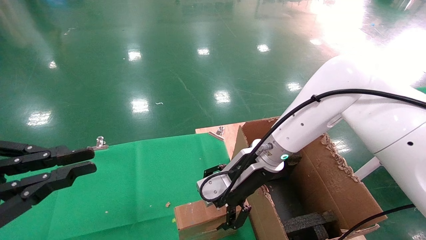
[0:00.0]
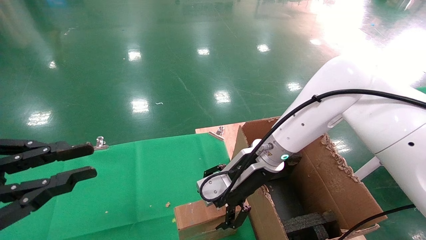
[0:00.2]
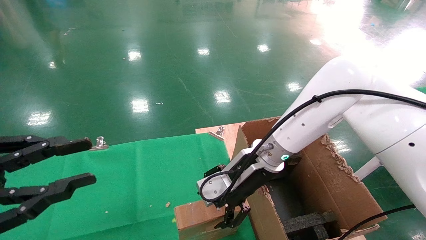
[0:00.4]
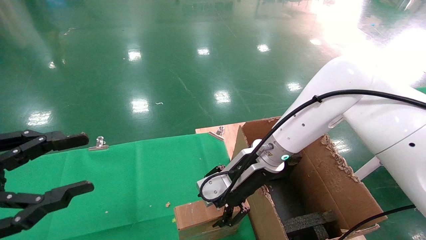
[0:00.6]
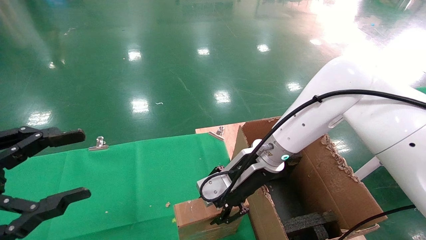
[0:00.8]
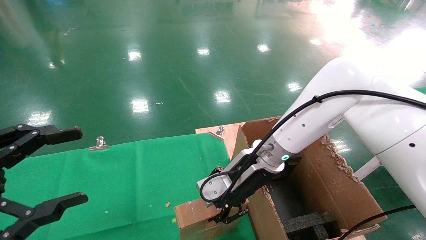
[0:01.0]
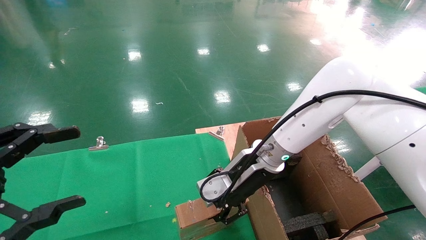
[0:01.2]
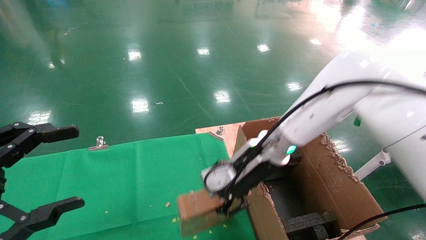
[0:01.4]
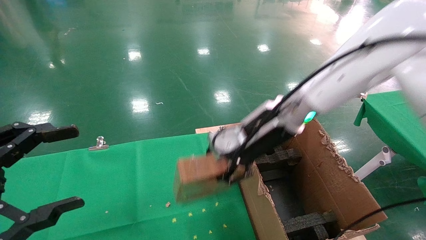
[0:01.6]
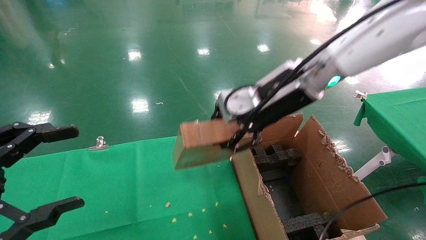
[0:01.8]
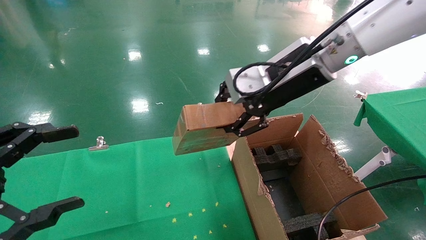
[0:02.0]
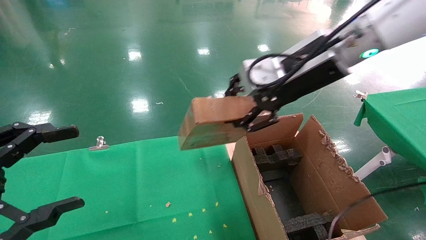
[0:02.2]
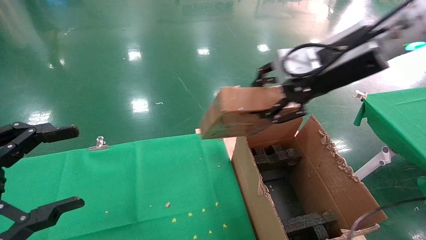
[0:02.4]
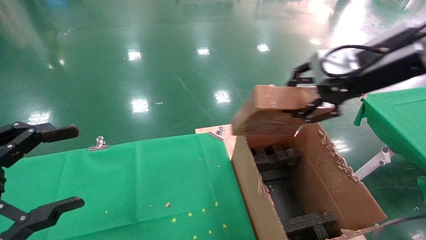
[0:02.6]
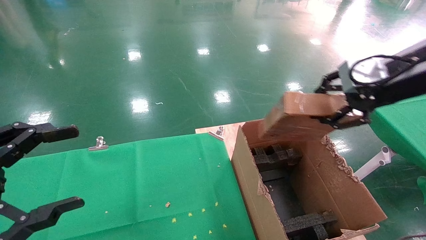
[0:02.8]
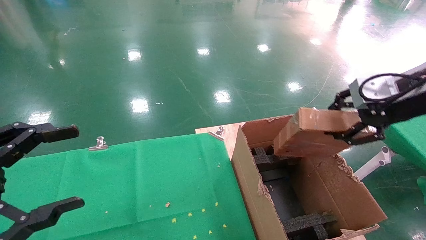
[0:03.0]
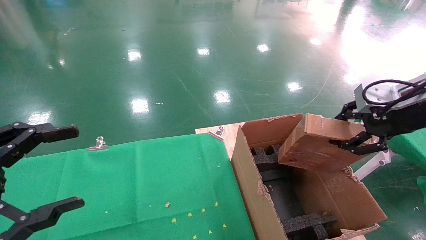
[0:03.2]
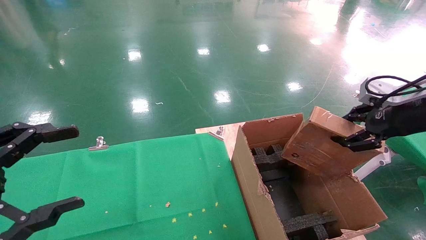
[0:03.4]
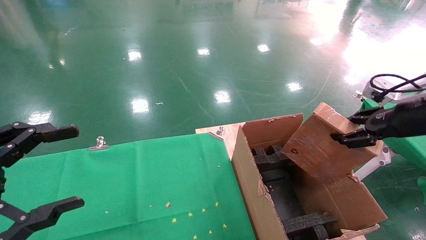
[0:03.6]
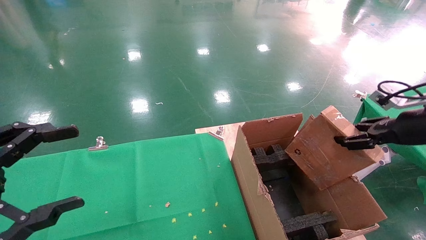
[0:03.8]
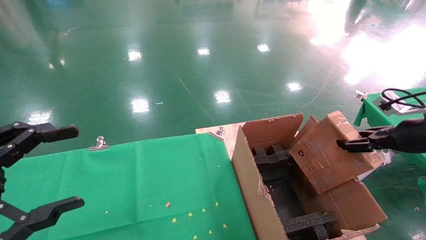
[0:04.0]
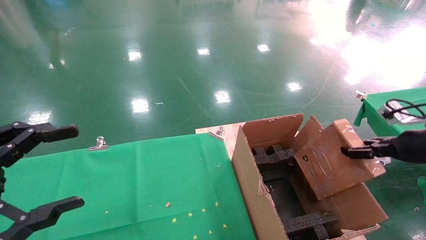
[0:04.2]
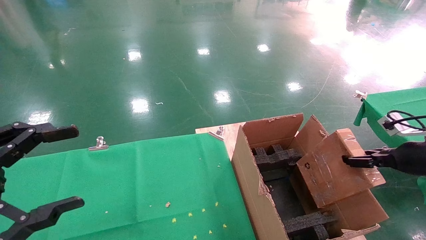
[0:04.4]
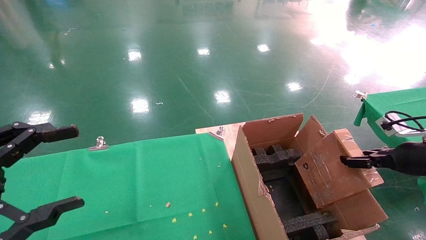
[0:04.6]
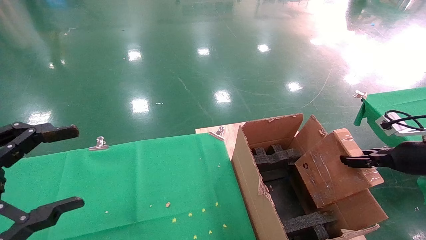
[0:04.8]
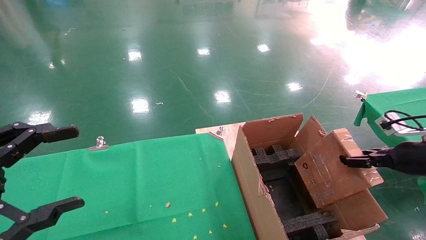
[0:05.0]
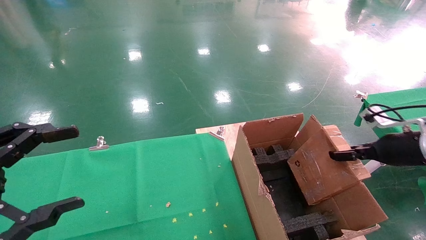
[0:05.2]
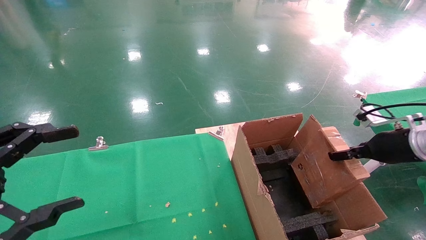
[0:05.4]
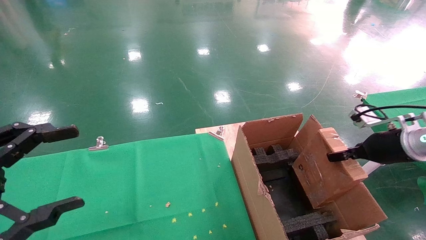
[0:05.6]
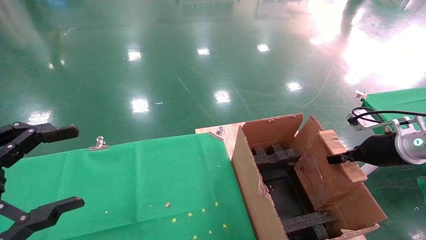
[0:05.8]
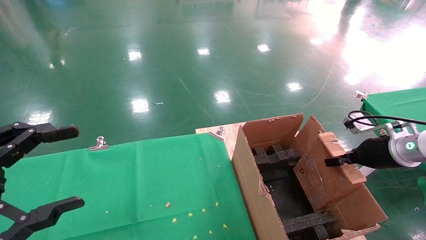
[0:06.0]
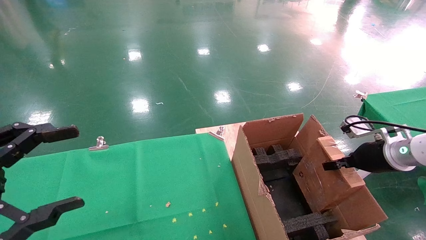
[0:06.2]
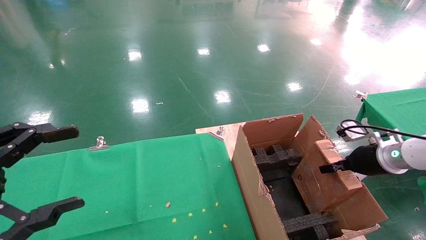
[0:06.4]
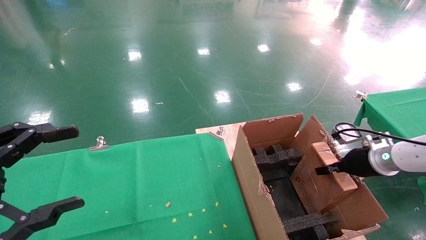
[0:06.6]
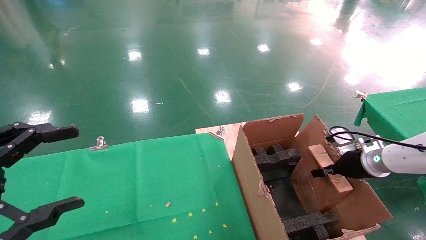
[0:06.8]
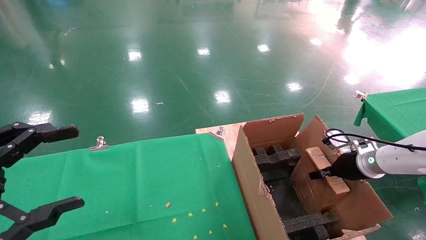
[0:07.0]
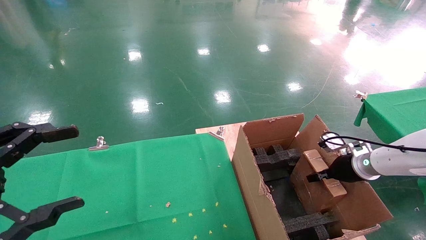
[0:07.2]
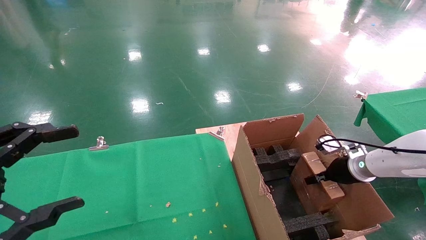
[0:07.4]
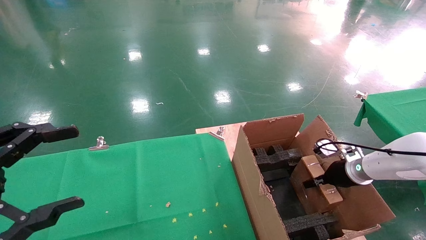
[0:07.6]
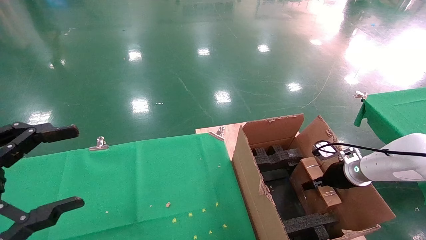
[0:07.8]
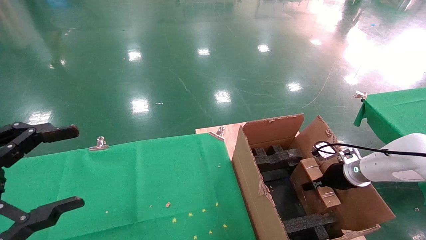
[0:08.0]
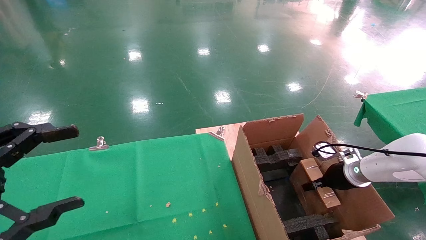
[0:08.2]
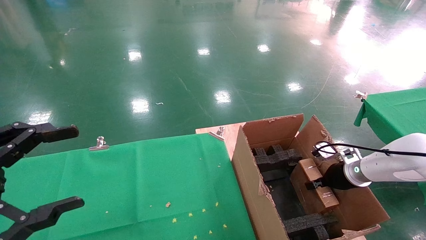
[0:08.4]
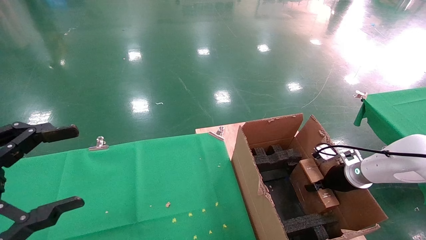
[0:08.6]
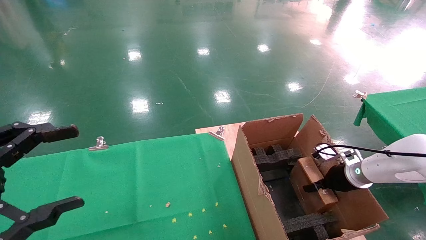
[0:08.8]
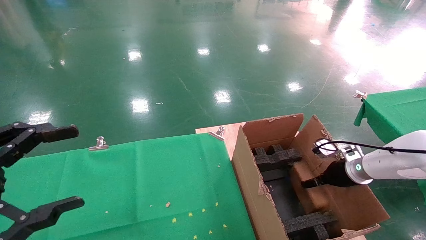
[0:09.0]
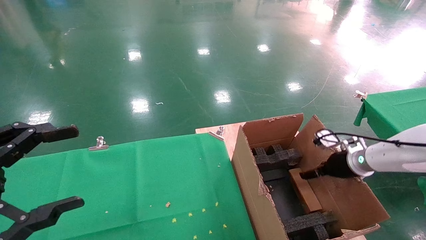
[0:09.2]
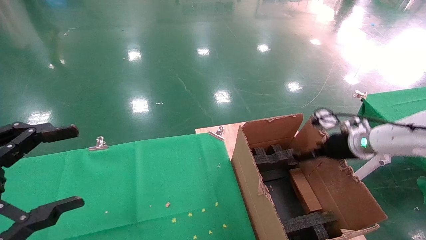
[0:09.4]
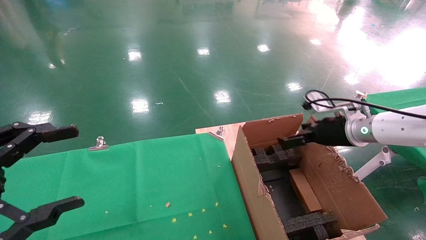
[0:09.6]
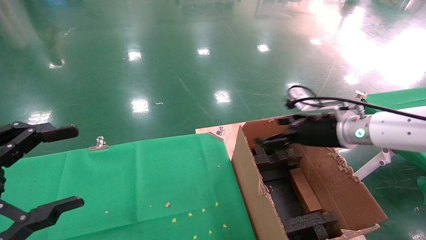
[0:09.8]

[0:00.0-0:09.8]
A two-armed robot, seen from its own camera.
Task of the whole recording: using a robotic arm to pick up a cardboard box and palace it the carton.
0:00.0 to 0:01.4: The left gripper opens, while the right gripper goes some 5 cm upward, and closes.
0:01.4 to 0:02.8: The right gripper is displaced to the right, upward and backward by about 25 cm.
0:02.8 to 0:04.2: The right gripper goes about 20 cm downward and to the right.
0:04.2 to 0:05.6: The right gripper changes place by roughly 5 cm.
0:05.6 to 0:07.0: The right gripper moves downward and forward, roughly 10 cm.
0:07.0 to 0:08.4: The right gripper shifts by some 5 cm.
0:08.4 to 0:09.8: The right gripper heads upward and to the left, covering approximately 20 cm, and opens.

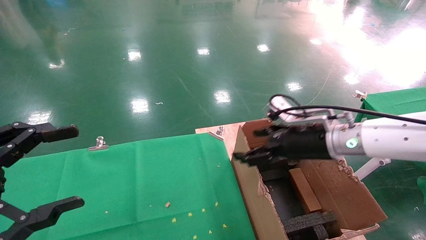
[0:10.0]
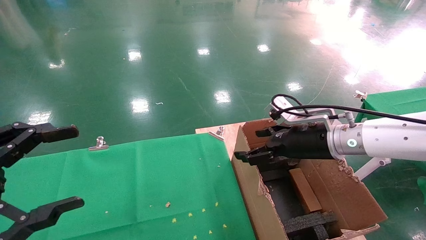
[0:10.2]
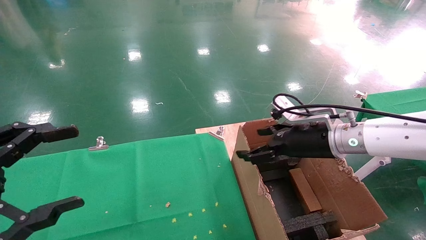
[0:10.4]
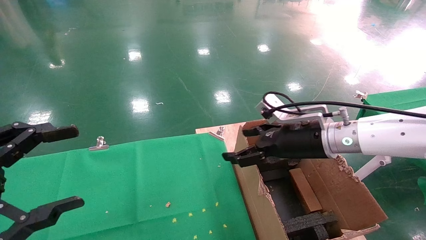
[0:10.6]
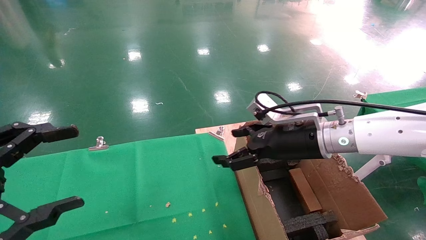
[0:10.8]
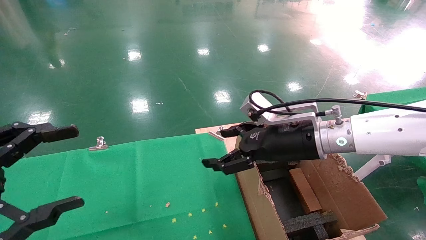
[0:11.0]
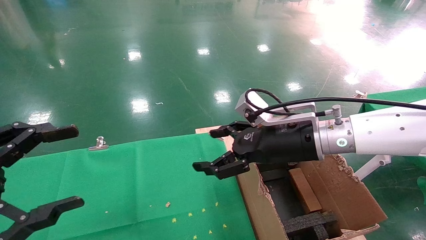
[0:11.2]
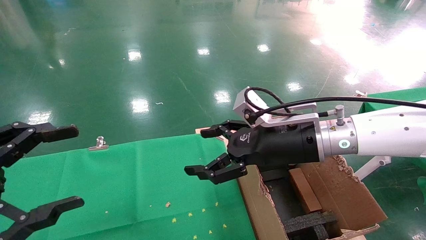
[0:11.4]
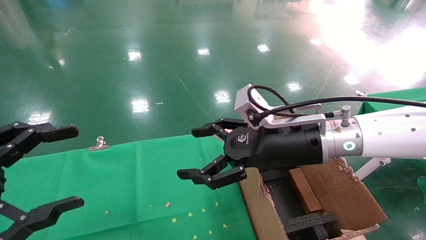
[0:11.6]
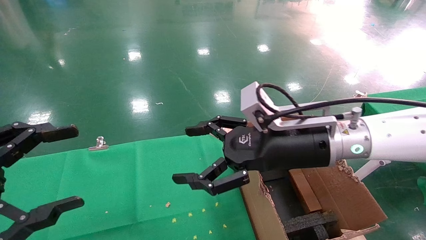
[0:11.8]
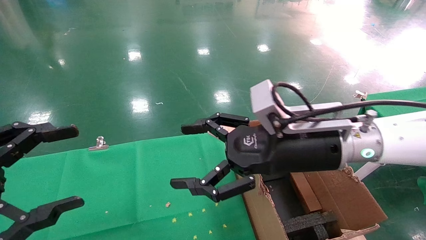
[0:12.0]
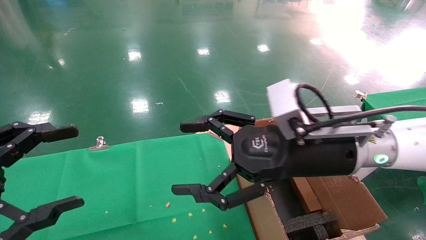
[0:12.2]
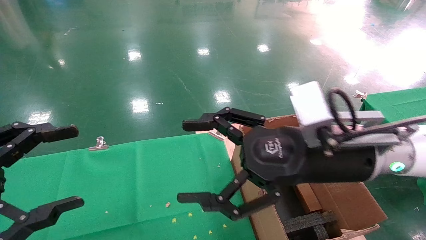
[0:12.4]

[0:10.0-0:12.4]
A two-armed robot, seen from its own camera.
Task of the whole recording: using a robotic arm to pick up a cardboard box and palace it the carton.
0:10.0 to 0:11.2: The right gripper is displaced to the left by some 10 cm.
0:11.2 to 0:12.4: The right gripper shifts some 10 cm backward.

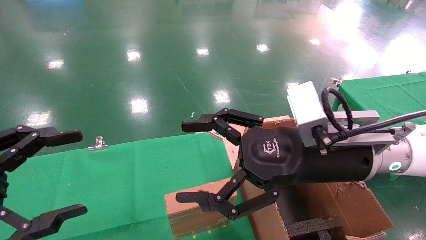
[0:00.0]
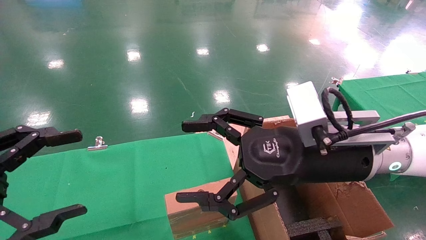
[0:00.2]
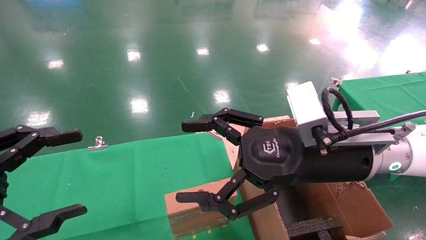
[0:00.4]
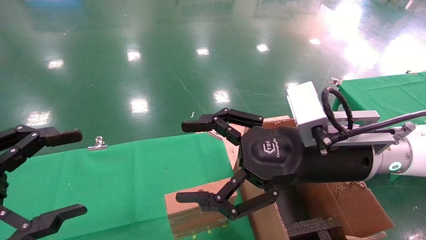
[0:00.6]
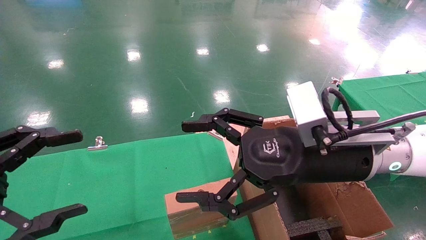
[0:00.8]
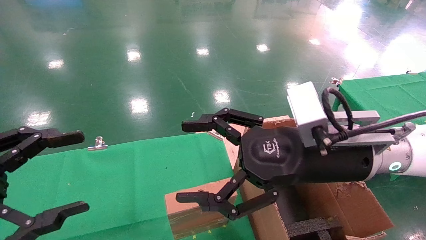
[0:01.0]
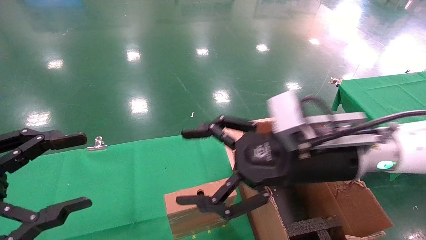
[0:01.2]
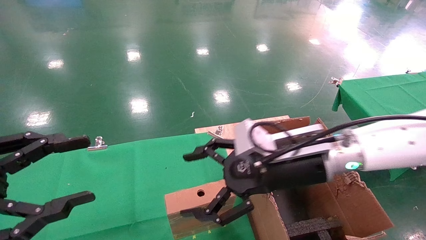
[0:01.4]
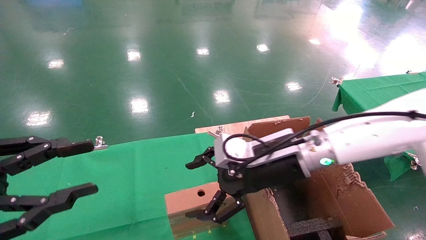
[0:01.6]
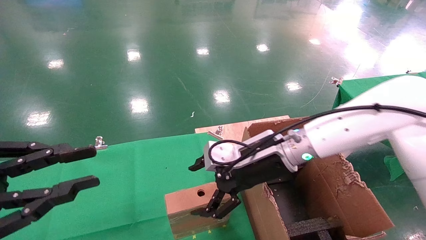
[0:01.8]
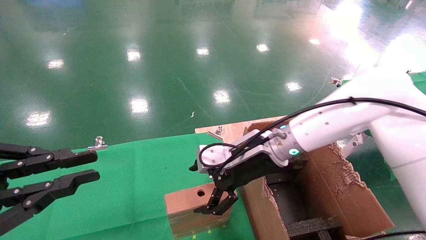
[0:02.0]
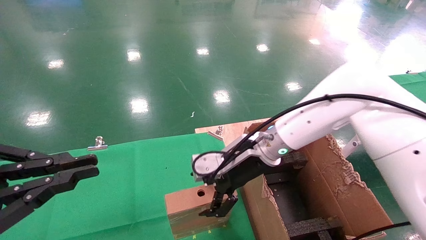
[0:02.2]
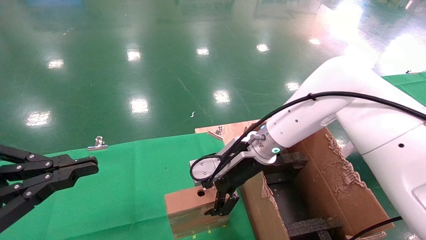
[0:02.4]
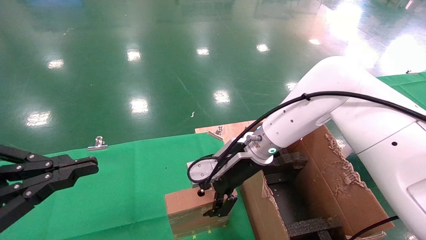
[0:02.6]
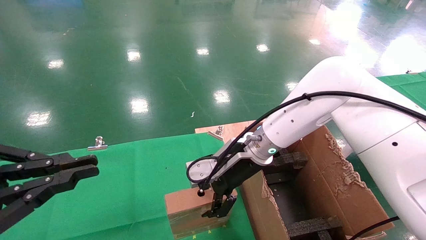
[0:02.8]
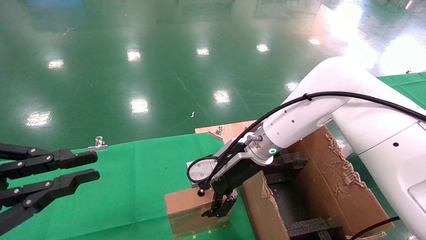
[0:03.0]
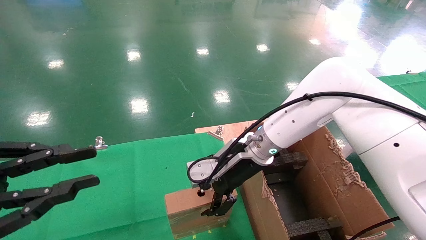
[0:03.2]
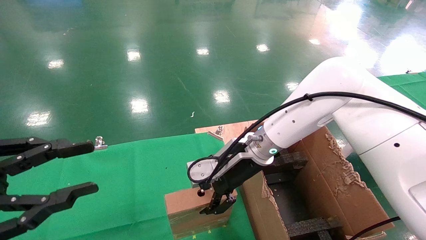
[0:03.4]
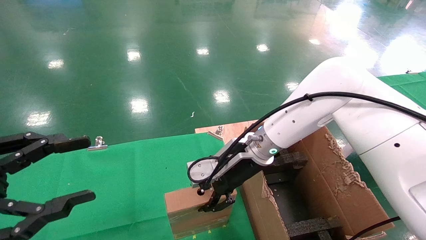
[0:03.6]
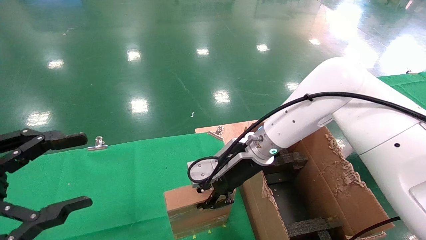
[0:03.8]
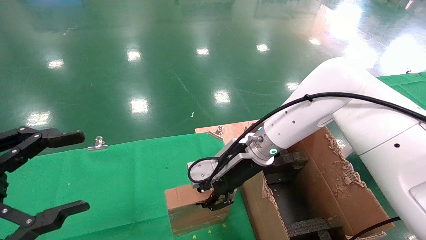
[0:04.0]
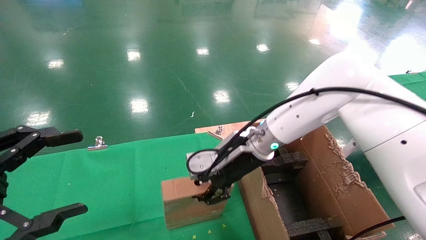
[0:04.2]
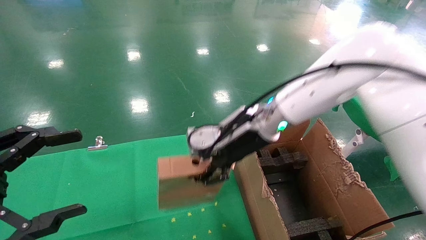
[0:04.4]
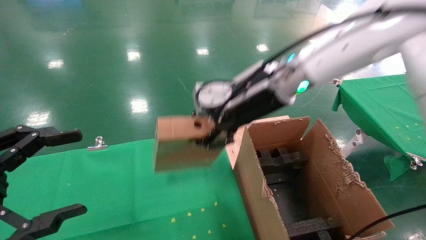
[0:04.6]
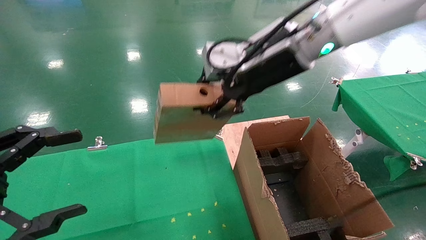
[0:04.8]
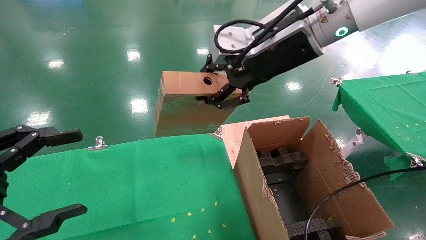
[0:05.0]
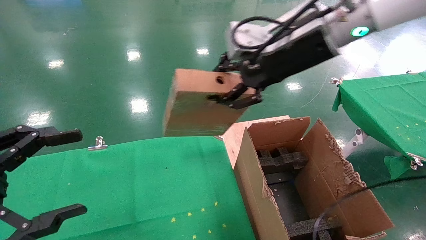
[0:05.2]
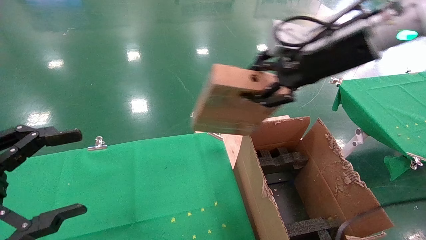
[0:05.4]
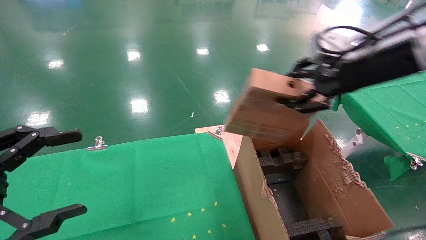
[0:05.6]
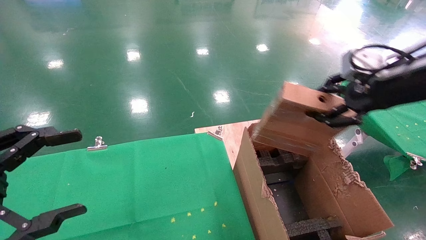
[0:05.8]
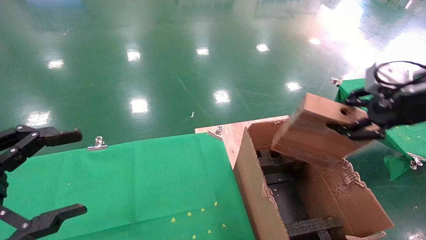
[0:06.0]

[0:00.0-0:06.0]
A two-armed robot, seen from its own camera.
Task of the whole recording: using a robotic arm to pick up a cardboard box and palace it the carton.
Step, 0:01.2 to 0:03.8: Pick up the mouse and the power cord paper box.
0:00.0 to 0:01.6: The right gripper heads forward, covering roughly 10 cm. Meanwhile the left gripper closes.
0:01.6 to 0:03.0: The right gripper heads forward, covering about 5 cm. Meanwhile the left gripper closes.
0:03.0 to 0:04.4: The right gripper is displaced upward by approximately 10 cm, and closes its fingers. Meanwhile the left gripper opens its fingers.
0:04.4 to 0:06.0: The right gripper shifts about 30 cm to the right and backward.
